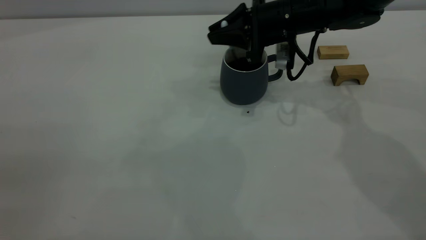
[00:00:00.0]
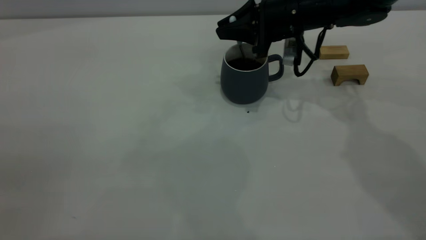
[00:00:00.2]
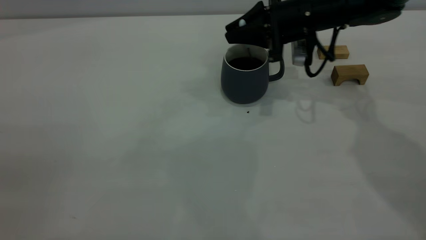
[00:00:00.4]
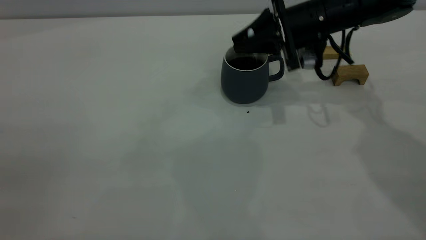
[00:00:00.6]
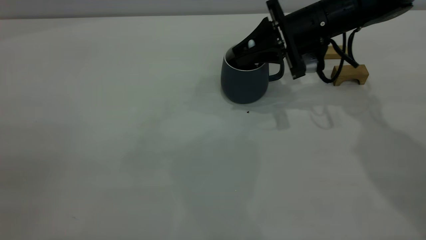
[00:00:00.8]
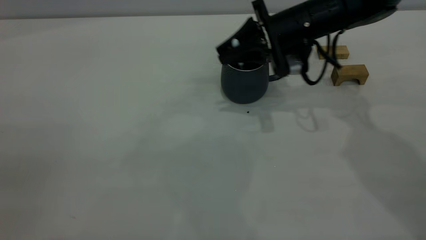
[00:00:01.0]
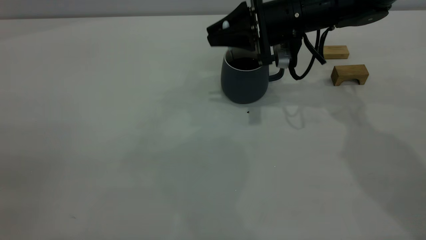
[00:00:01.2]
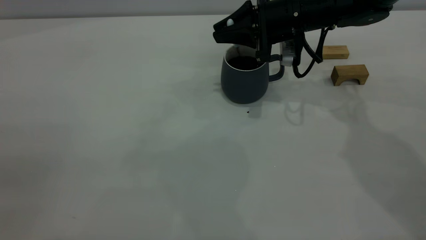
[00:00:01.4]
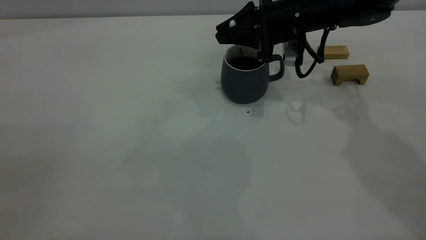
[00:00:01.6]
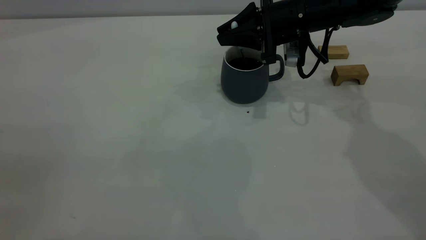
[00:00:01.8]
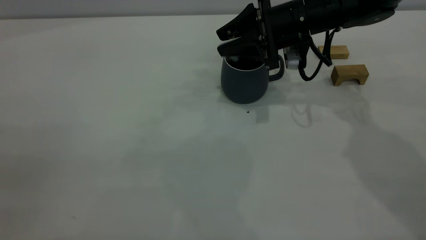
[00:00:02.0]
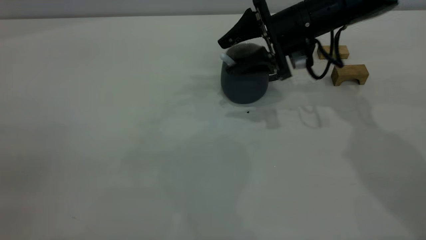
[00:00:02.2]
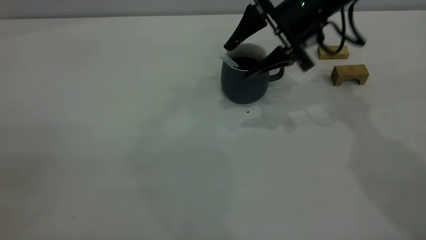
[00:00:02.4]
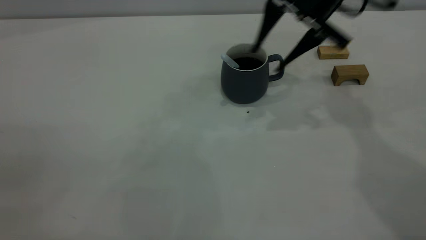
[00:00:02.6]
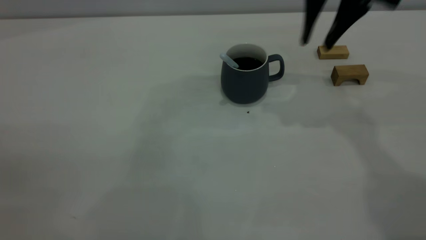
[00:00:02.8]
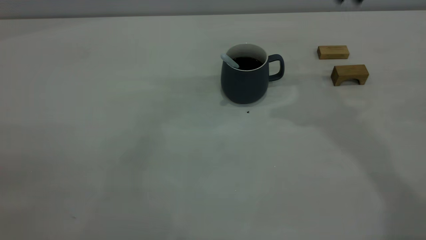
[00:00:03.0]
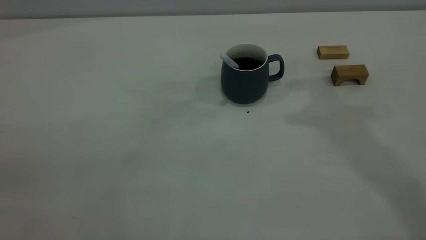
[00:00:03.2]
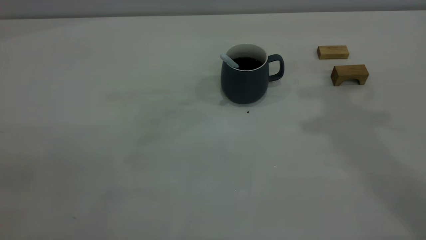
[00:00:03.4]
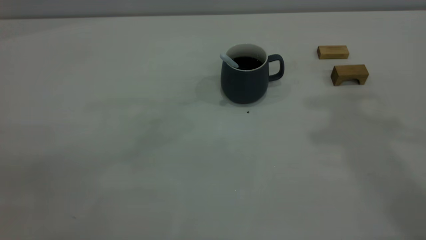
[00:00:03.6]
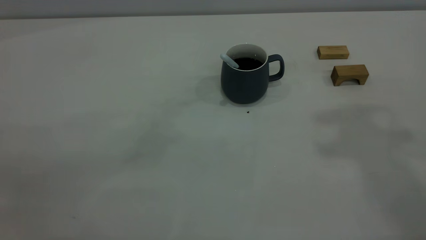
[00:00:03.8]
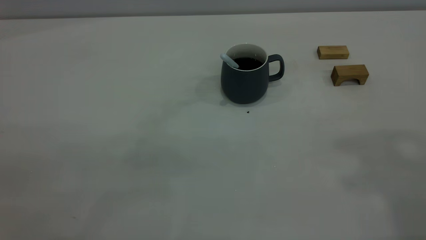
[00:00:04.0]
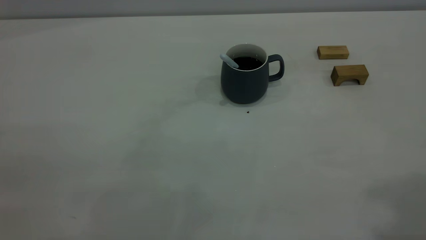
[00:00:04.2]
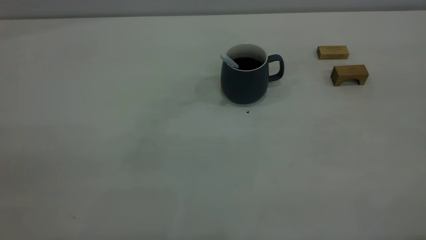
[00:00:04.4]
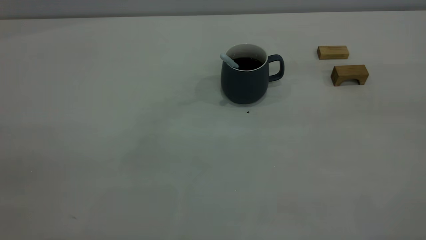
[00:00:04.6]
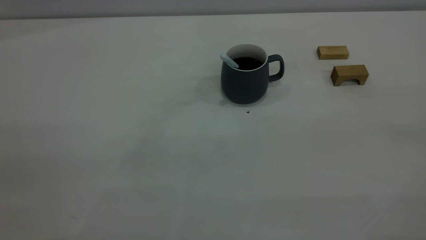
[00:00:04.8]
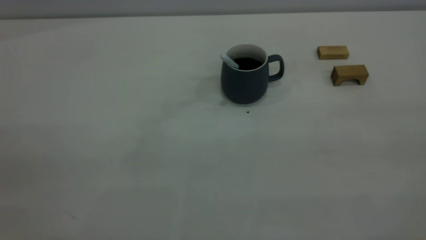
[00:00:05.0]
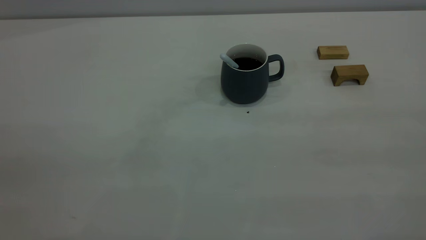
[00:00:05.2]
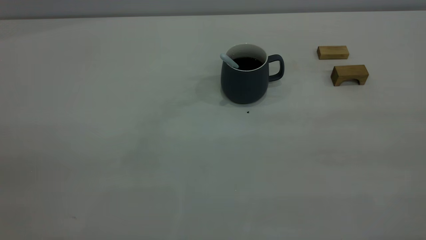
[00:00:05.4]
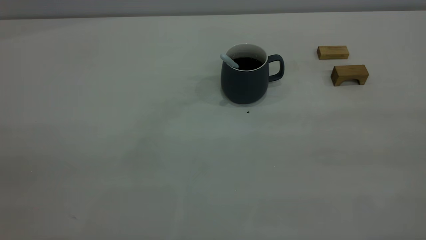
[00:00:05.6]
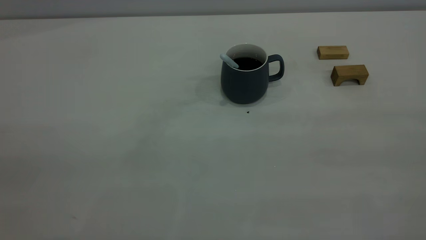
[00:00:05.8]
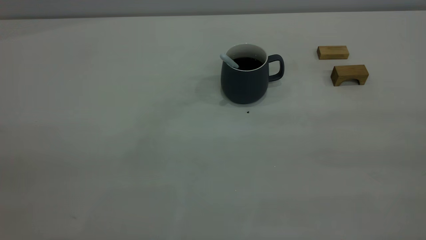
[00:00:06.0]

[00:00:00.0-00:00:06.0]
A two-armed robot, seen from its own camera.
Step, 00:00:00.0 to 00:00:02.6: Stir the coffee in the cup.
00:00:01.6 to 00:00:03.0: The right gripper is displaced upward by some 20 cm, and opens, then closes once more.

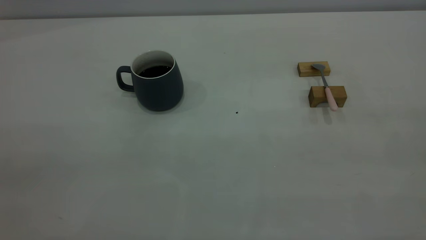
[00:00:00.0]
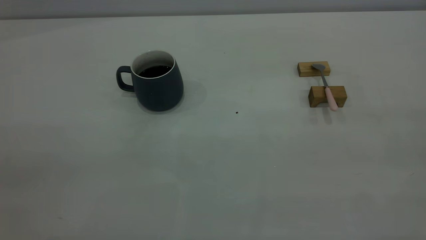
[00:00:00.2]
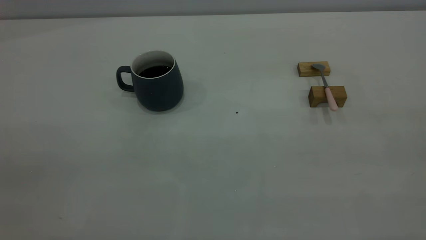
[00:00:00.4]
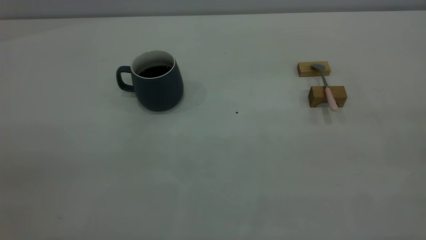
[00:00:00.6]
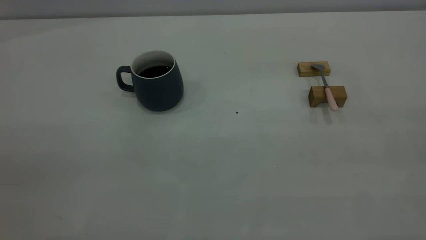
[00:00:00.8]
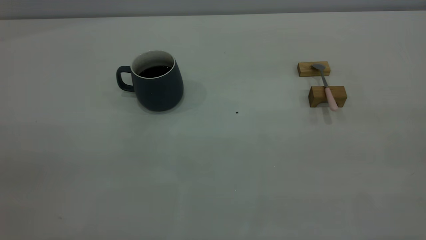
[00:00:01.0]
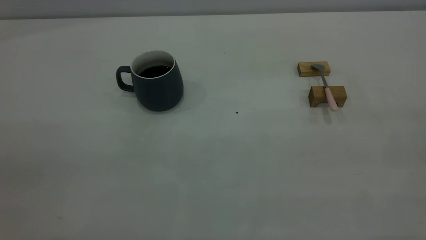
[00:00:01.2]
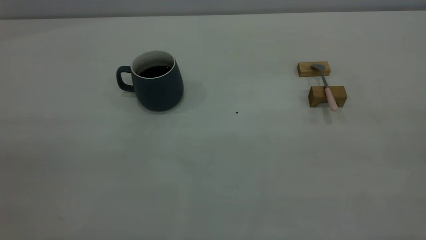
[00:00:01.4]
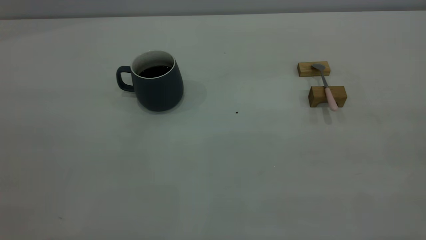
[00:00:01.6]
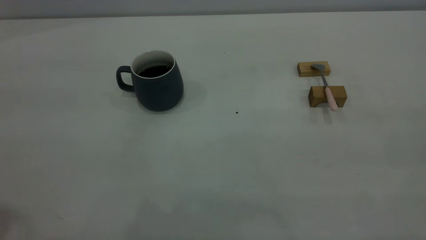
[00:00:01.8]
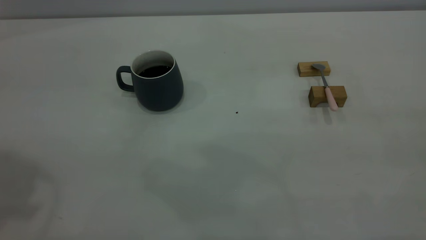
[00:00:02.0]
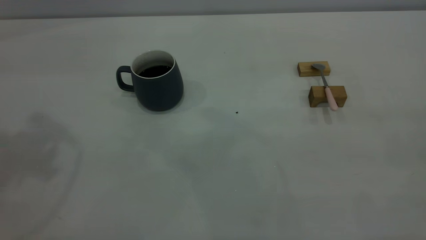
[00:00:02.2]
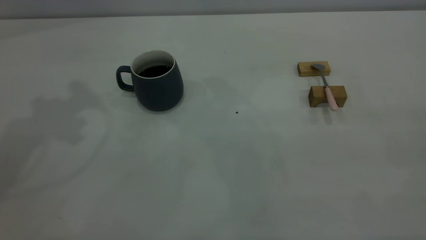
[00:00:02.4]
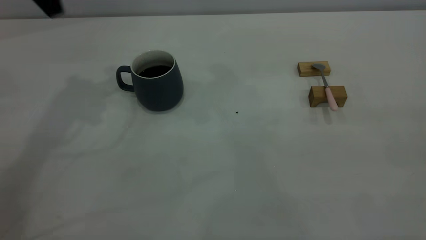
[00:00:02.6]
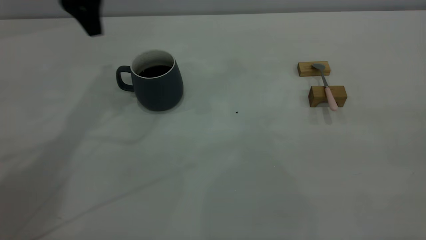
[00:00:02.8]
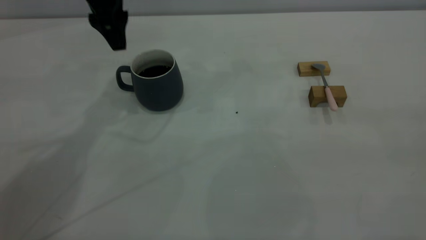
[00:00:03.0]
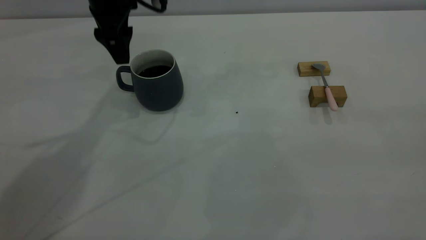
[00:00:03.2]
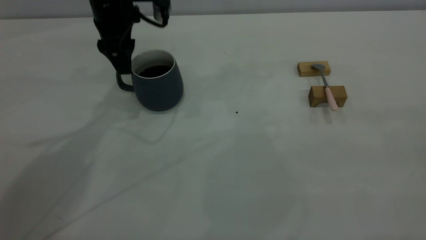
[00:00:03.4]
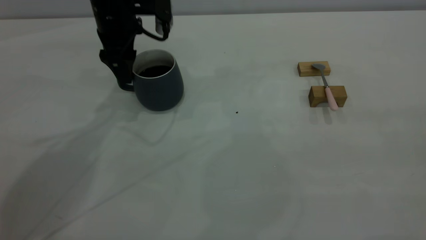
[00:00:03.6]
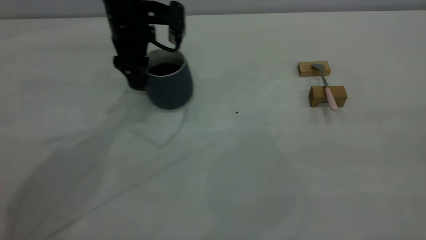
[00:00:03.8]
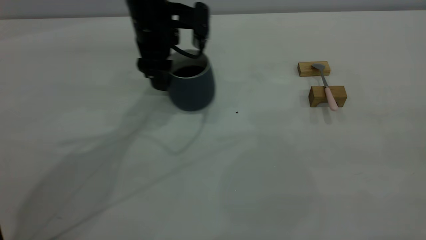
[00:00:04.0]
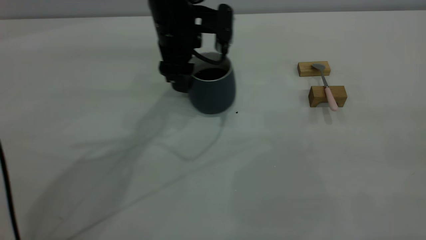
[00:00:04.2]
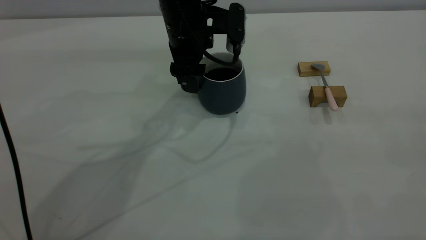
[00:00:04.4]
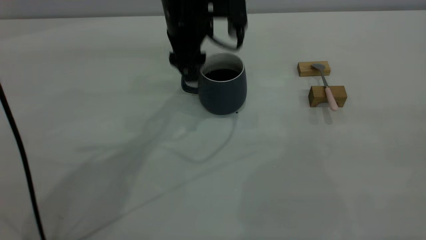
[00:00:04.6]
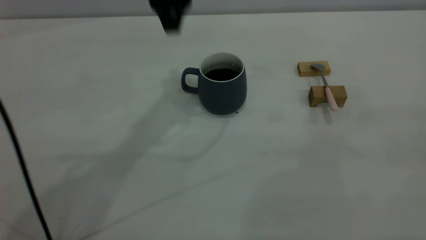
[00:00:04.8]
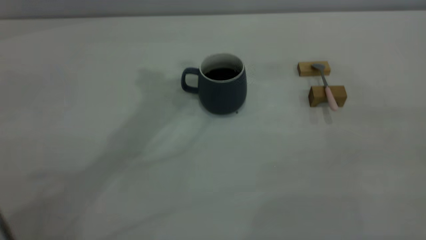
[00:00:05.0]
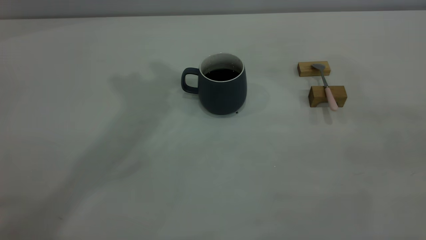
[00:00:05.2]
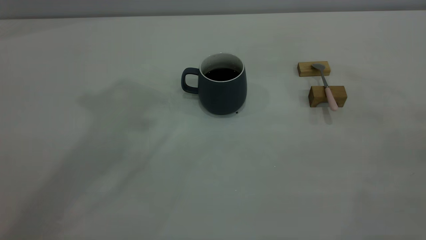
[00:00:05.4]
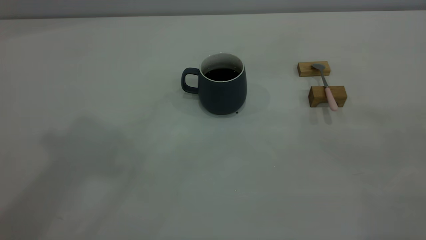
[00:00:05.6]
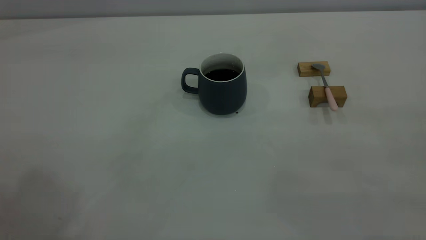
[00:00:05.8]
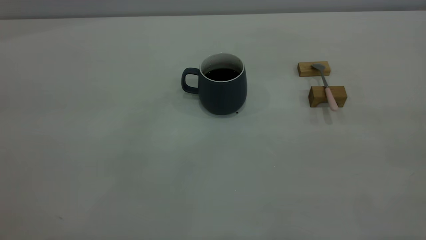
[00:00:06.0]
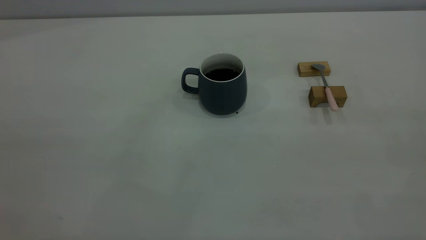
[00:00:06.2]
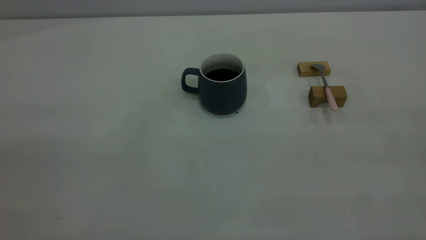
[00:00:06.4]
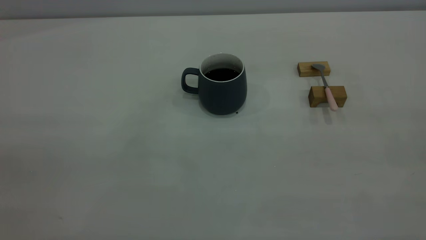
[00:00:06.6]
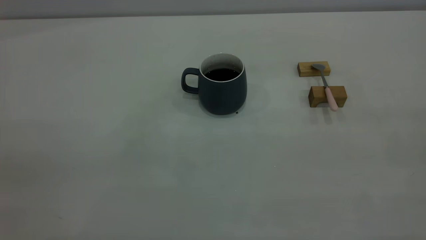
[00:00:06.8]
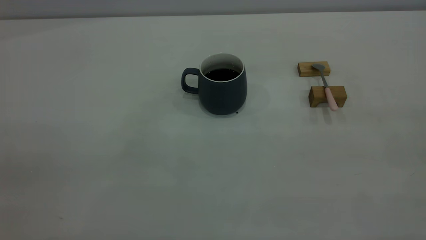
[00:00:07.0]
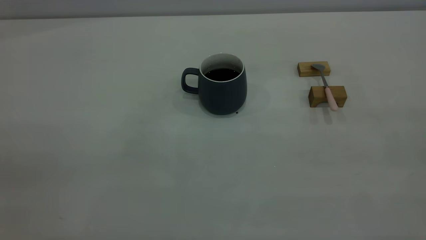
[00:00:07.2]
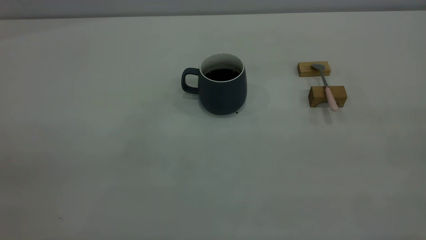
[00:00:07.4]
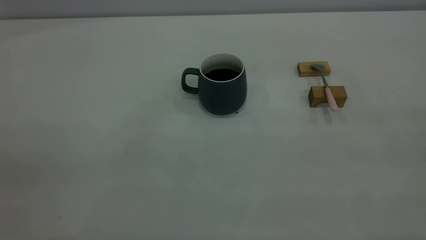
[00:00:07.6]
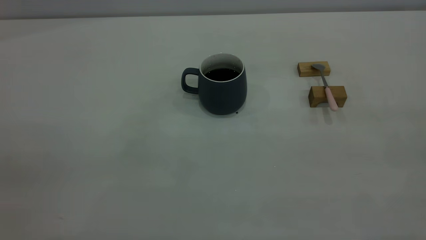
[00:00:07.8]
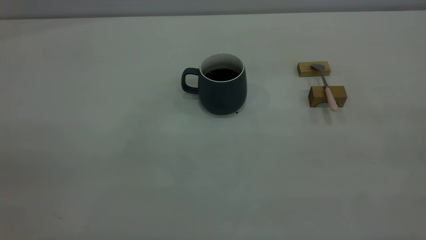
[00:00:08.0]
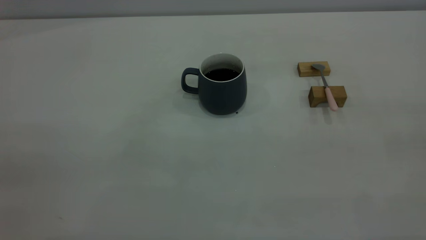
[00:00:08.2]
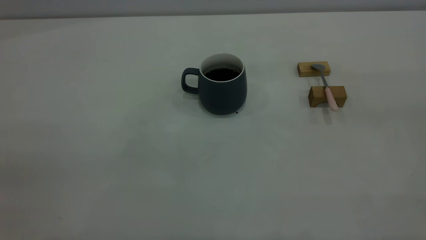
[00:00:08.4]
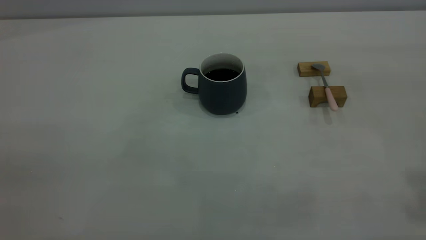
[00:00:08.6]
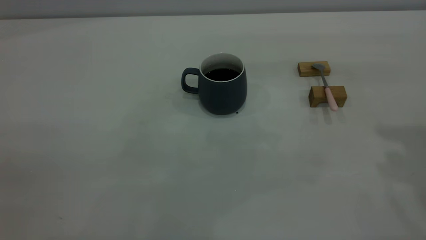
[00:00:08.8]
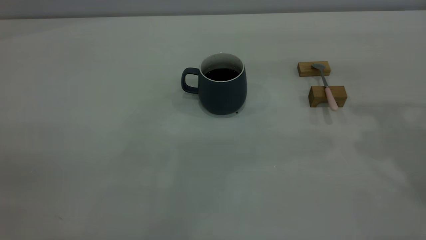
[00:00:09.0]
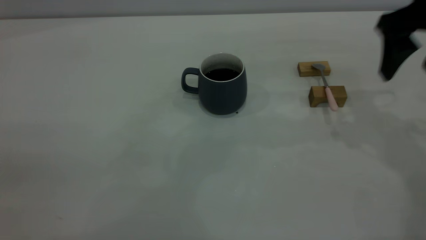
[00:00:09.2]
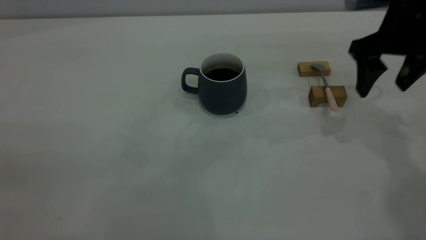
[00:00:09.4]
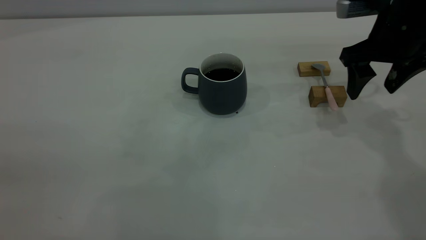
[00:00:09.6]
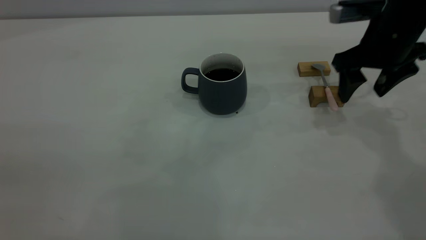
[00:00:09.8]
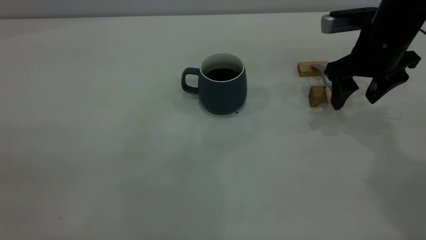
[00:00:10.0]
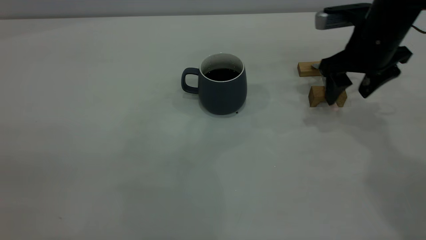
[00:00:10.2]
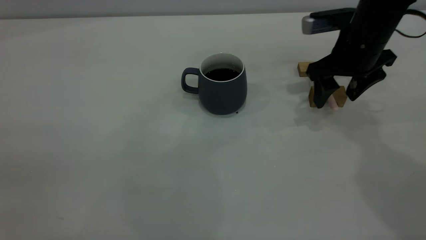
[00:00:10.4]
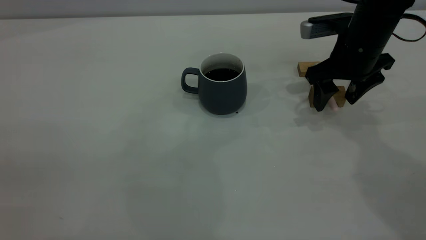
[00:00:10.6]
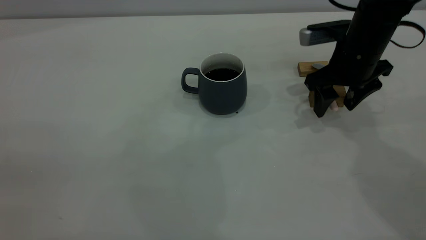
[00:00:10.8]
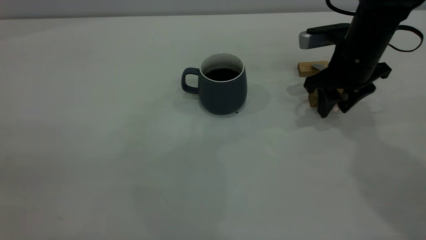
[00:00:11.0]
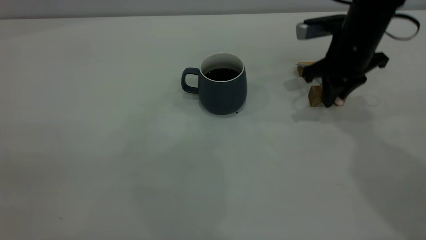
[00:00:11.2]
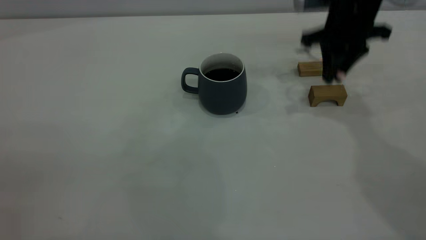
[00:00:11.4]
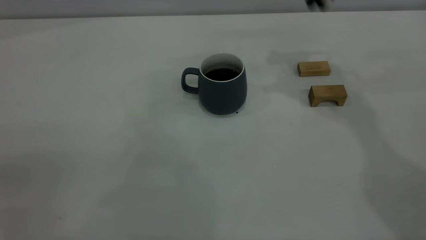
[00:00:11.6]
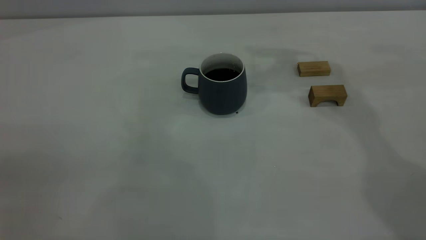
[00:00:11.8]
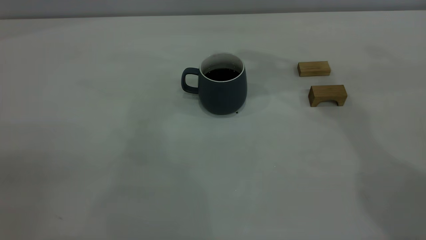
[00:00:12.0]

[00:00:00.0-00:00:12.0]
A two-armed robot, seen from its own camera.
Step, 00:00:00.0 to 00:00:04.6: Move the cup with coffee to the center of view.
Step, 00:00:04.8 to 00:00:11.2: Pick up the spoon.
00:00:01.6 to 00:00:03.0: The left gripper shifts approximately 40 cm forward and downward, and opens.
00:00:03.0 to 00:00:04.4: The left gripper heads to the right and downward, covering some 15 cm.
00:00:04.4 to 00:00:06.0: The left gripper goes roughly 50 cm backward, upward and to the left.
00:00:09.0 to 00:00:10.4: The right gripper moves downward, forward and to the left, about 20 cm.
00:00:10.4 to 00:00:12.0: The right gripper moves upward and to the left, about 25 cm, and closes.
